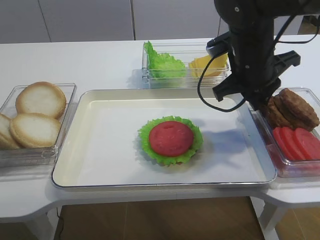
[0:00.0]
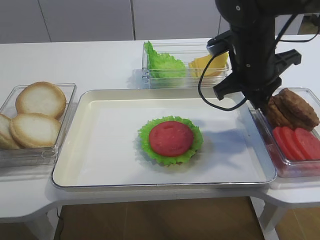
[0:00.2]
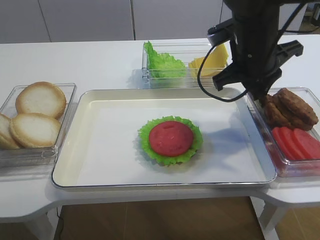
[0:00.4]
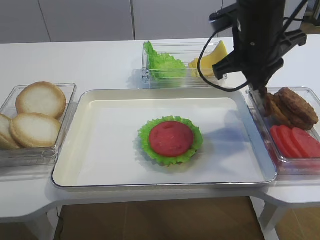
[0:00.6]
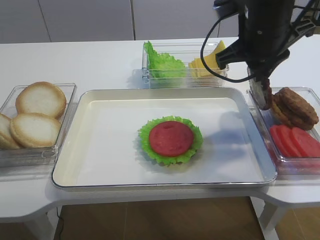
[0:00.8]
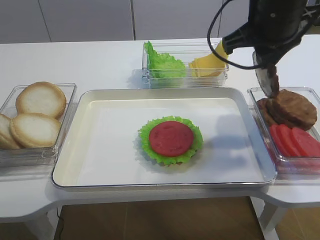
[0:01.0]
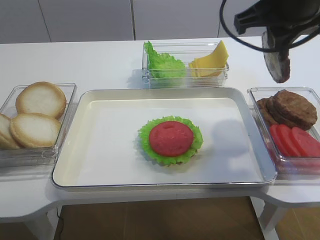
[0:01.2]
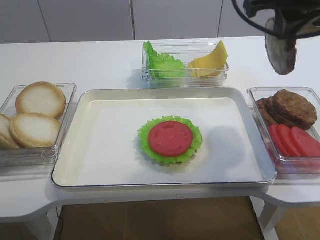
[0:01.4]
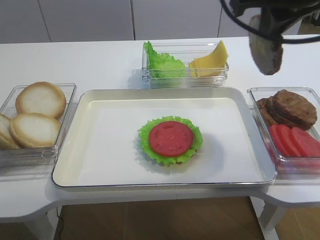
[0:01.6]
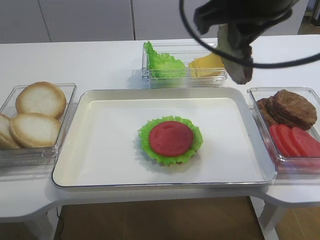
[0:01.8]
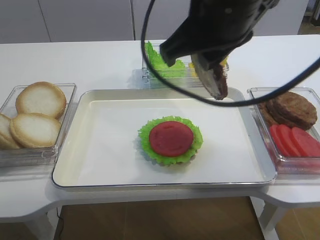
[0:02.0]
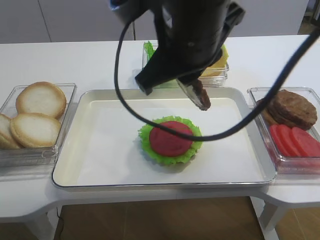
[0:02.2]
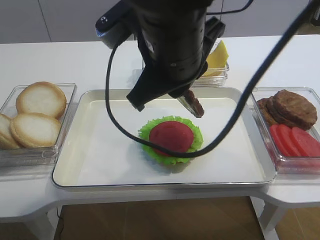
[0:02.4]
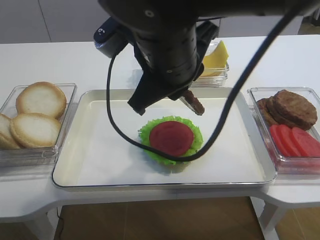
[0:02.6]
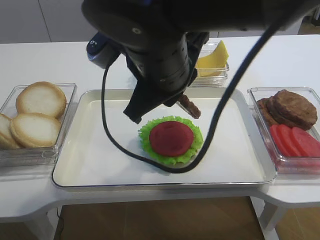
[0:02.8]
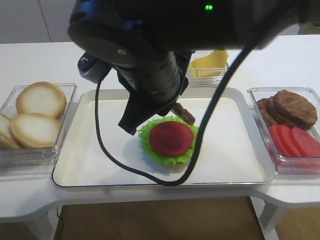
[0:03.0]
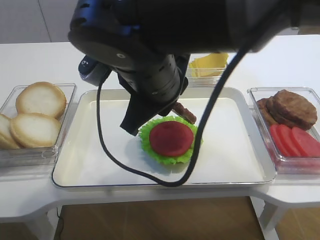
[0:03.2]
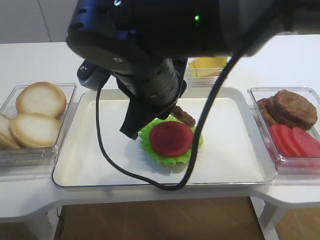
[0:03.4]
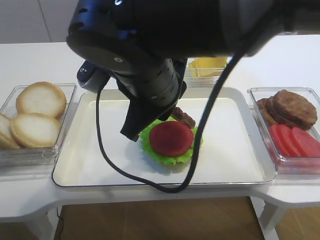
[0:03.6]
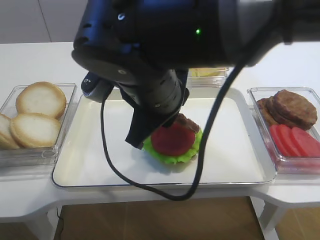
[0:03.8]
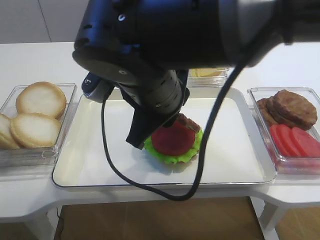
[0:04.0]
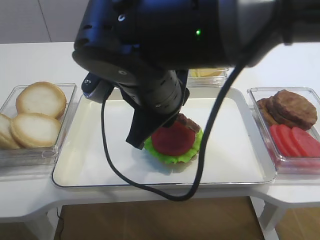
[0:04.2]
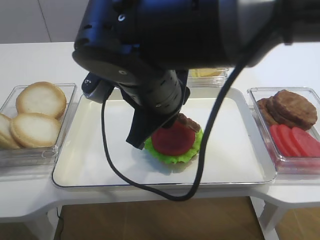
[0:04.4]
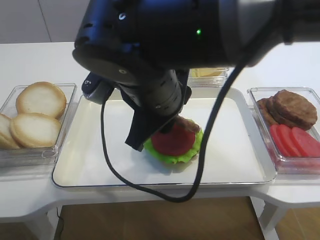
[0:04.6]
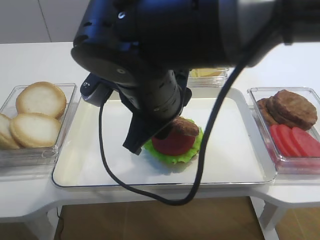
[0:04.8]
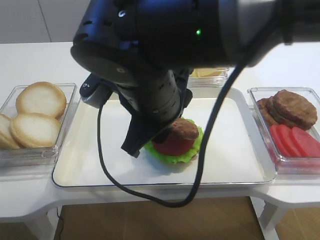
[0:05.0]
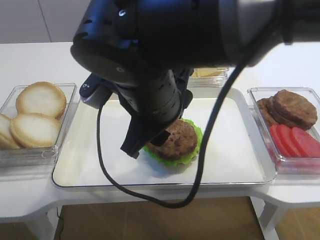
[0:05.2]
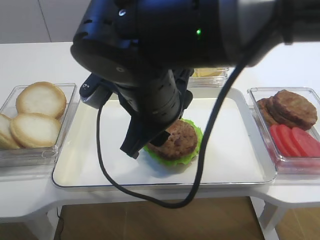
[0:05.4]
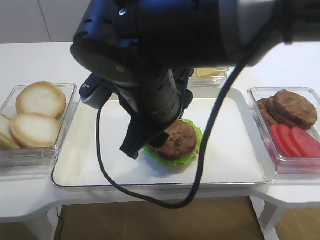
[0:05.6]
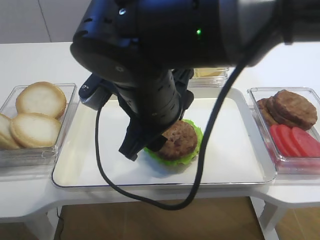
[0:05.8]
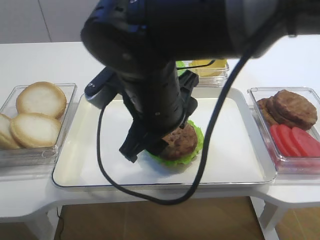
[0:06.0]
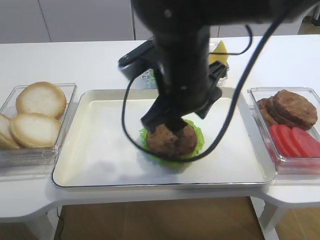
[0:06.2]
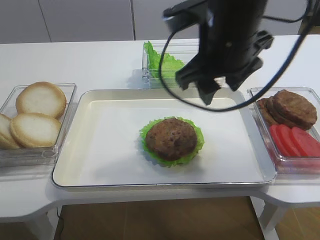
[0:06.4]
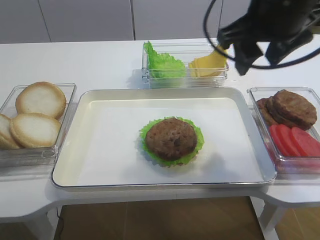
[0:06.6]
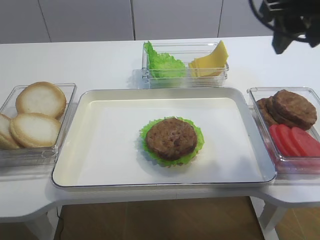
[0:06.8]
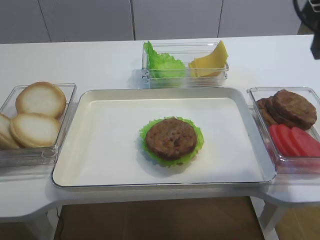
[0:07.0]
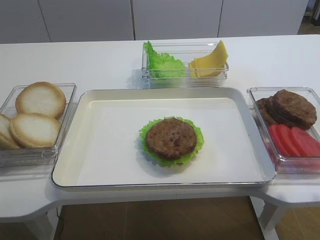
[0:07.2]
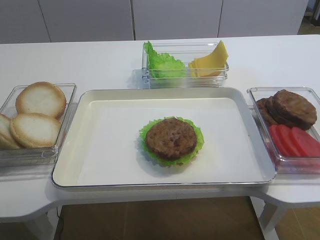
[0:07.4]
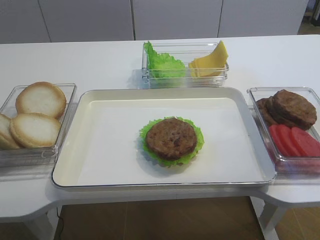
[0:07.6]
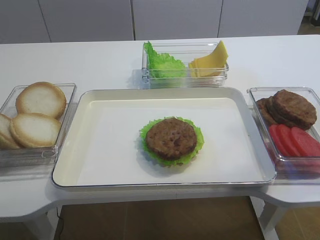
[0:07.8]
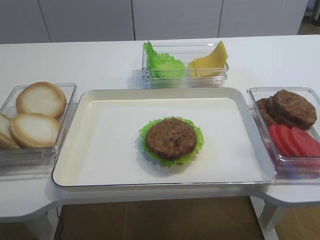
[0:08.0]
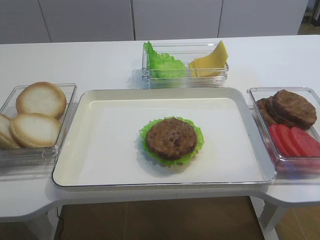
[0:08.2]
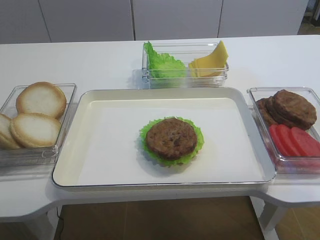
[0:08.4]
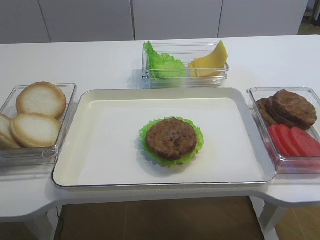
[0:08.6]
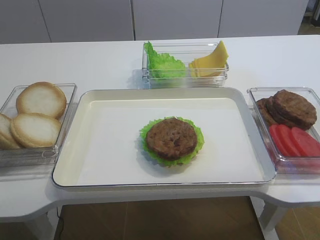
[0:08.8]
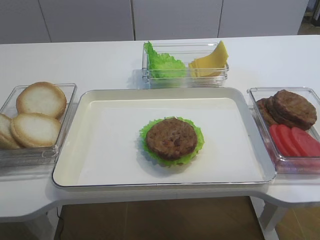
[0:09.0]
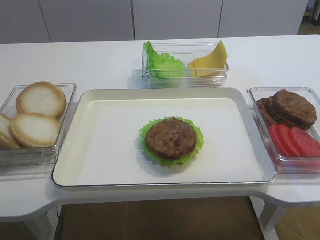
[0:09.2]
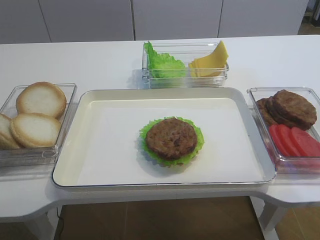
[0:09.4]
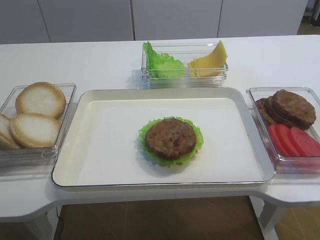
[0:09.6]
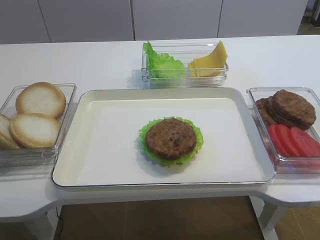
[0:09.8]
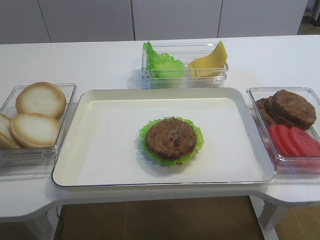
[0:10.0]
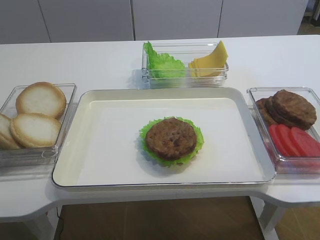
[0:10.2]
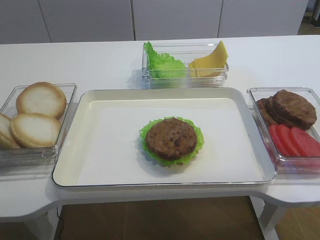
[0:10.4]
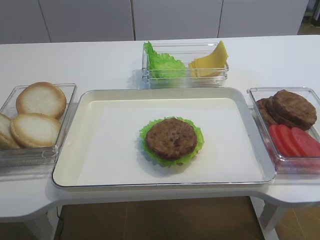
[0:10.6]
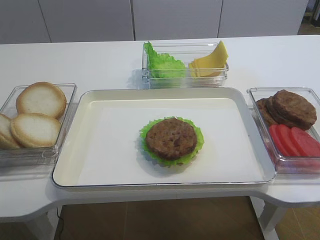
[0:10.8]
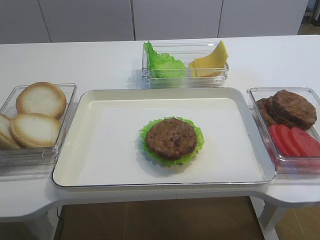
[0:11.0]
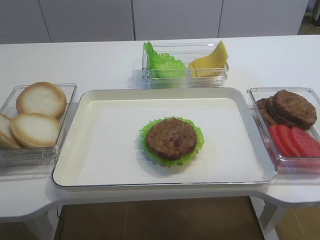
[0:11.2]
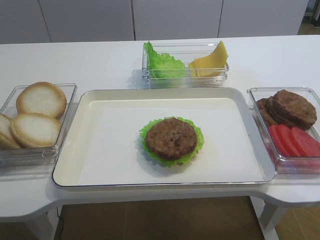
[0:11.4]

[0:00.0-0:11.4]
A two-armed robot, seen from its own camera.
Step, 0:01.2 to 0:05.2: Place the cutlet on the tomato slice with the right gripper.
0:00.0 to 0:01.4: The right gripper is displaced upward and backward by approximately 15 cm.
0:01.4 to 0:02.8: The right gripper travels to the left and downward by roughly 20 cm.
0:04.2 to 0:05.6: The right gripper opens.
0:05.6 to 0:07.2: The right gripper heads to the right, covering about 25 cm.
0:07.2 to 0:08.6: The right gripper shifts approximately 25 cm backward.

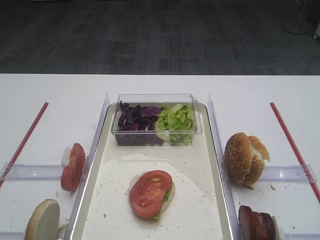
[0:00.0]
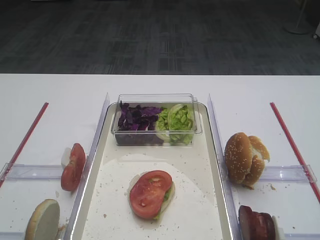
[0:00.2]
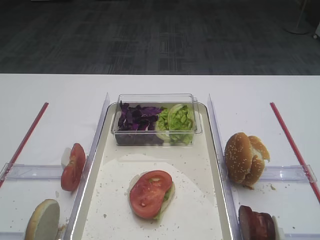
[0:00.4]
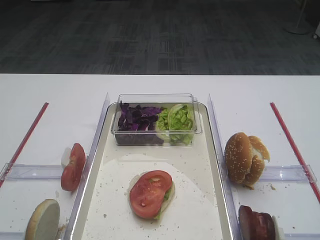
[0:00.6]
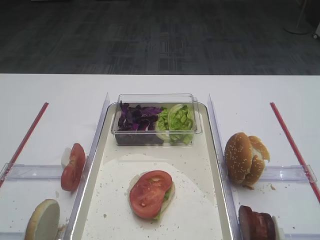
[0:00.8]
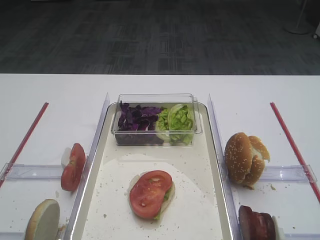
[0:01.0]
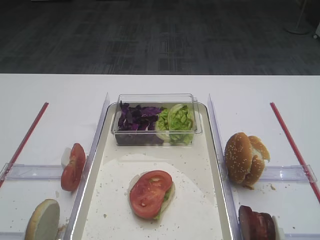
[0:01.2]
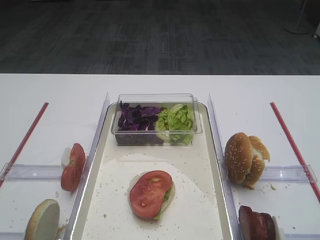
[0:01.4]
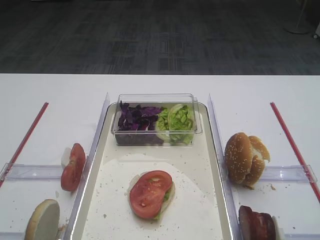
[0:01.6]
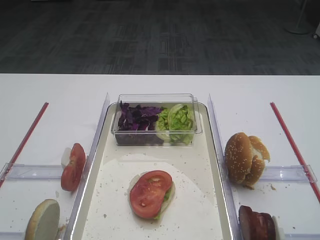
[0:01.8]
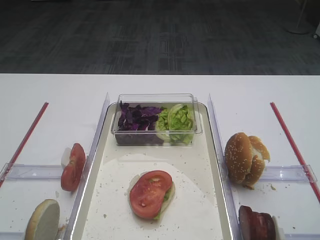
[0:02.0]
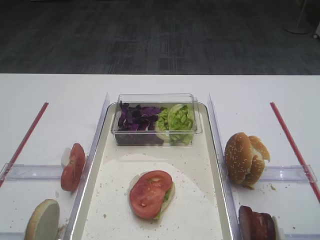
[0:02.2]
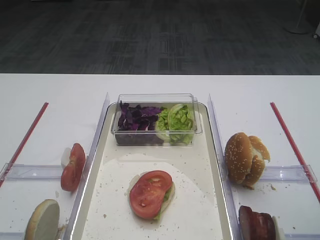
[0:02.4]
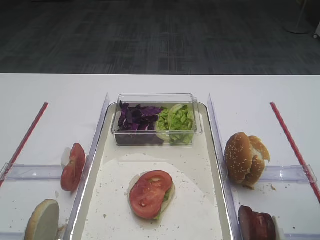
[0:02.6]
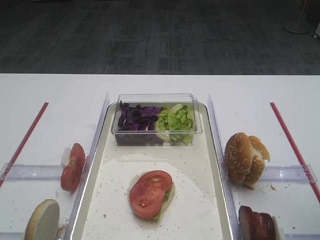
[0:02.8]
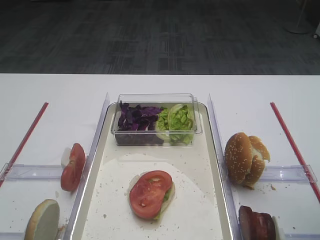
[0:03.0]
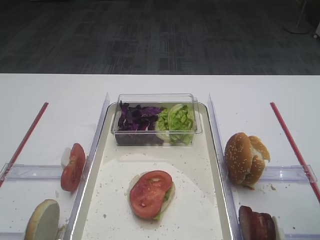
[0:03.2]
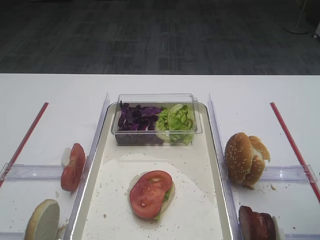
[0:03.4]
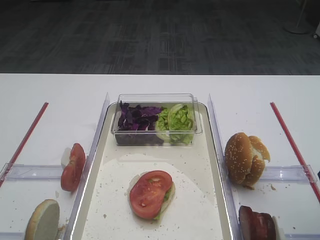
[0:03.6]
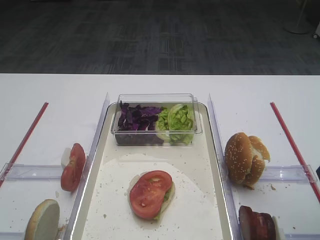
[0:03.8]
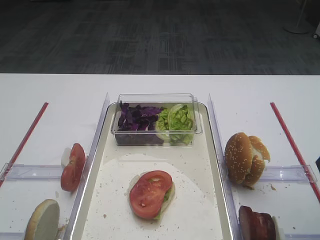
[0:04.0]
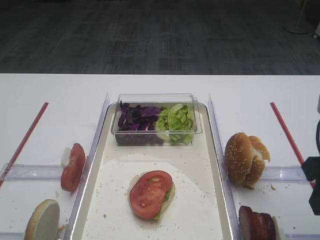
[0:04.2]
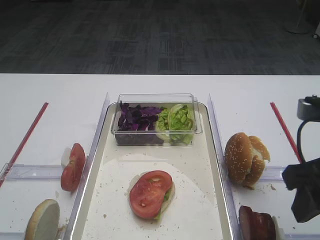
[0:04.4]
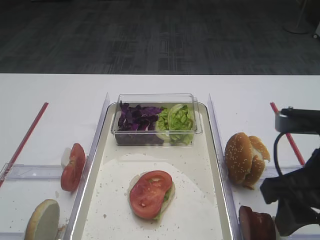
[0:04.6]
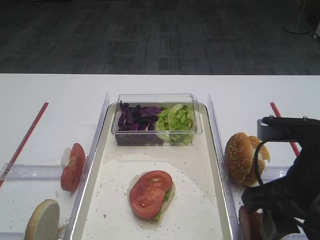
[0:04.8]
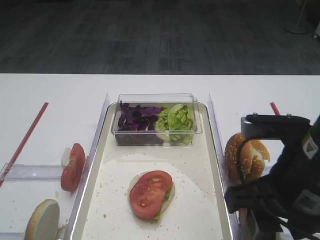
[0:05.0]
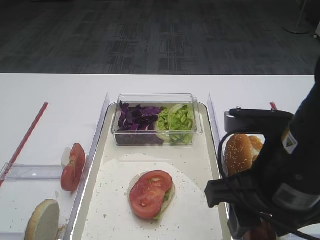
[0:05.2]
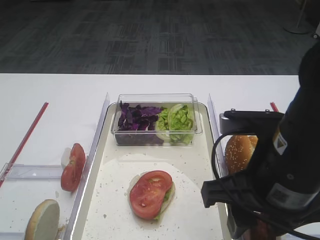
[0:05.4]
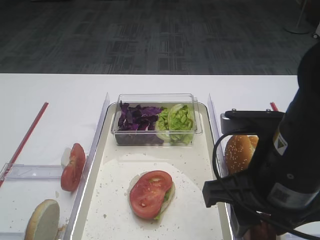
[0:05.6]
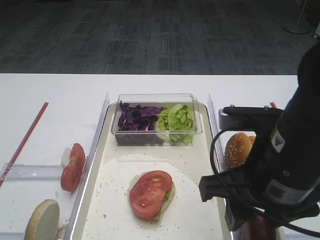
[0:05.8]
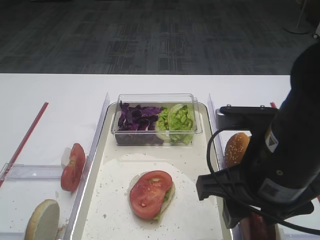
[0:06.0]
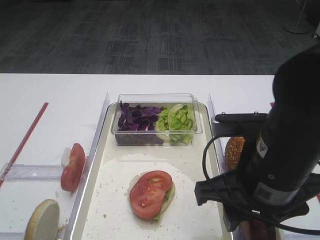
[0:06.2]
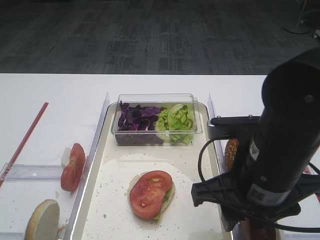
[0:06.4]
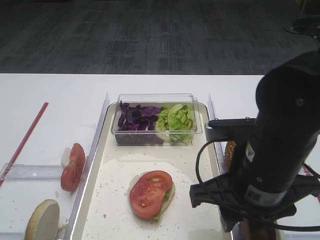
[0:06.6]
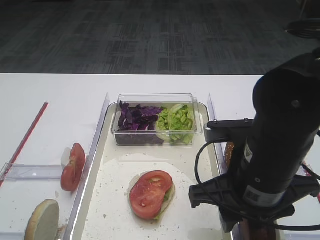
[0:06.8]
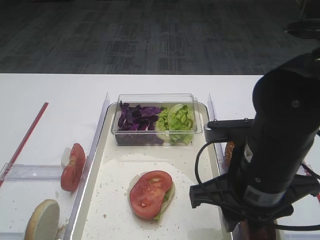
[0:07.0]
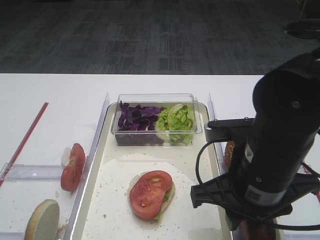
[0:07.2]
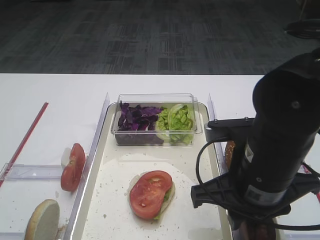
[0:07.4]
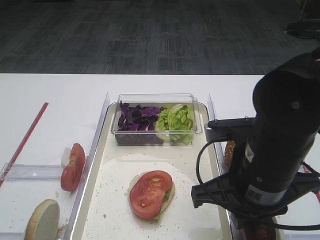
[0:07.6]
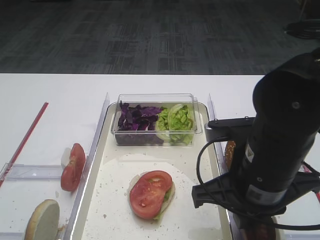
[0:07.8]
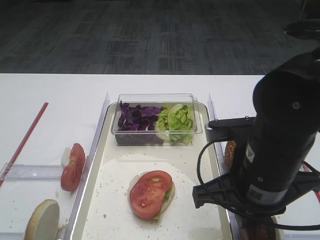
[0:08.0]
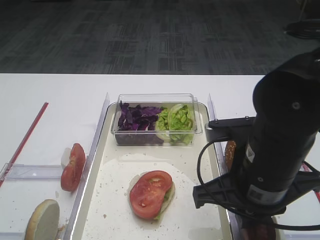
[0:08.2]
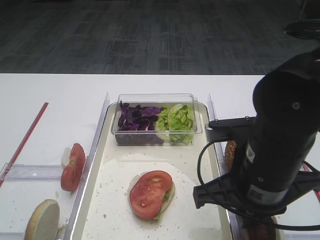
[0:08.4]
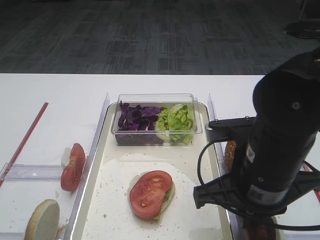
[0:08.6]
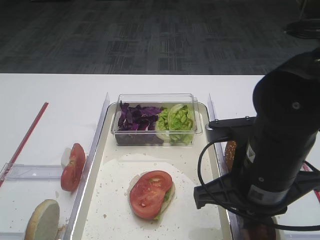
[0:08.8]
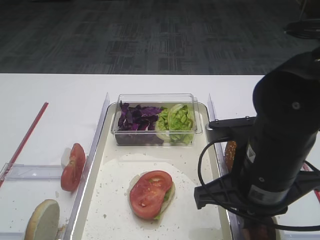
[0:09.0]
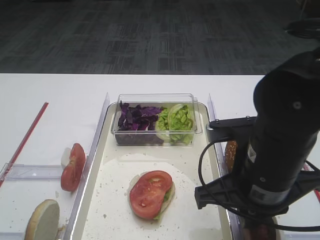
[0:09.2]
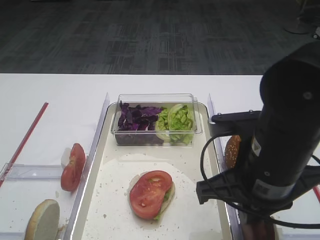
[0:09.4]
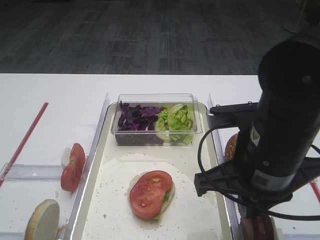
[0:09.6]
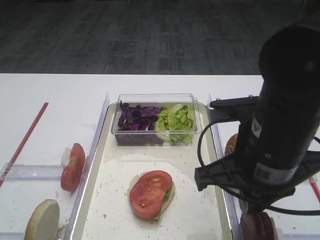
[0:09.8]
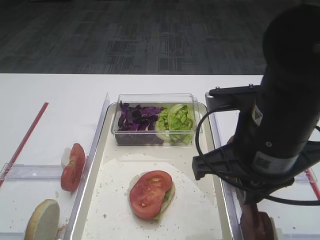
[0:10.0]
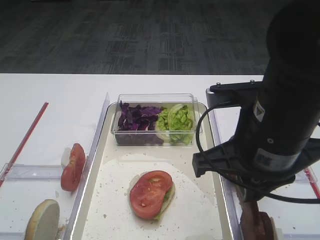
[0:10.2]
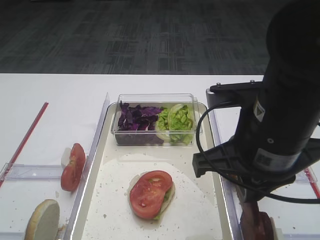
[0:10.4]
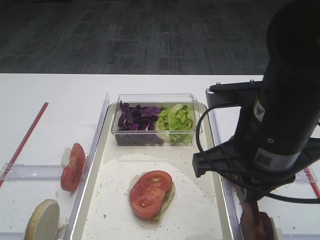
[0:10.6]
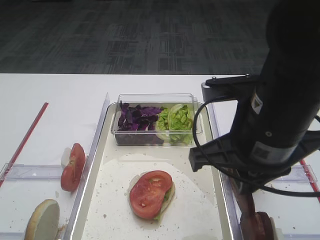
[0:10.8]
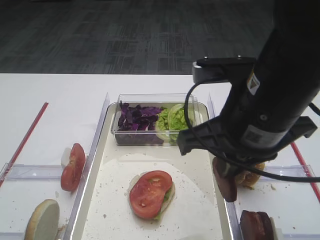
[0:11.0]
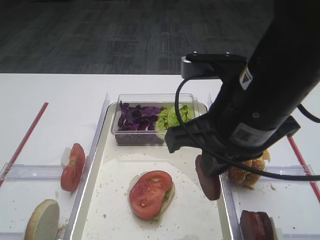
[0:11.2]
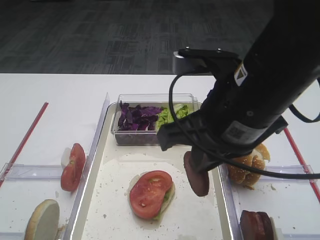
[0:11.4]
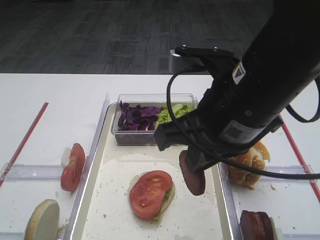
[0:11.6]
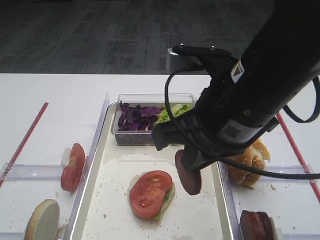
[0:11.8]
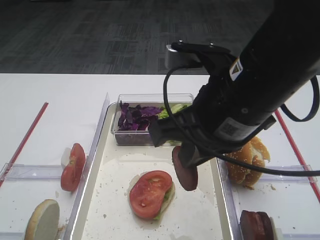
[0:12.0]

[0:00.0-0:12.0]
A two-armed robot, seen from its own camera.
Step, 0:00.0 to 0:09.4: Pick up the cutlet with the right gripper.
0:01.6 to 0:03.0: The right gripper travels forward by approximately 15 cm.
0:03.0 to 0:04.4: The right gripper goes some 5 cm to the left.
0:04.4 to 0:06.0: The right gripper moves to the left, roughly 10 cm.
0:06.0 to 0:07.6: The right gripper closes its fingers.
0:07.6 to 0:09.0: The two grippers keep their place.
0:09.0 to 0:10.4: The right gripper moves upward, about 5 cm.
